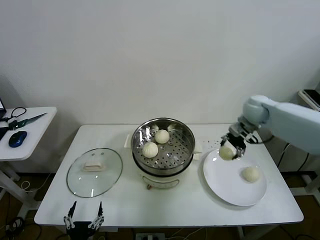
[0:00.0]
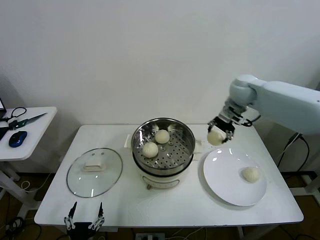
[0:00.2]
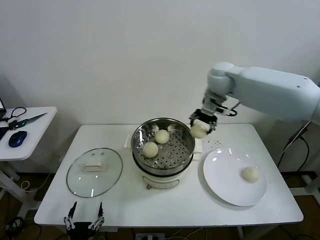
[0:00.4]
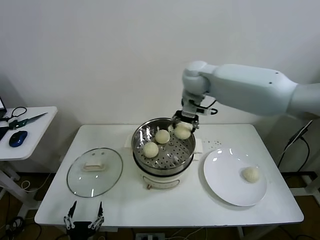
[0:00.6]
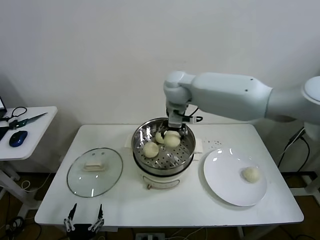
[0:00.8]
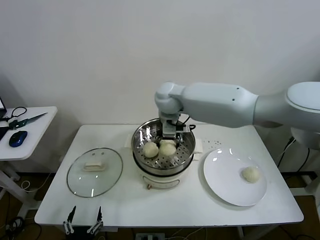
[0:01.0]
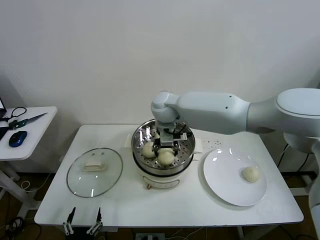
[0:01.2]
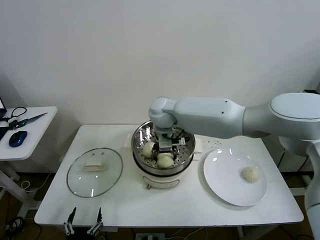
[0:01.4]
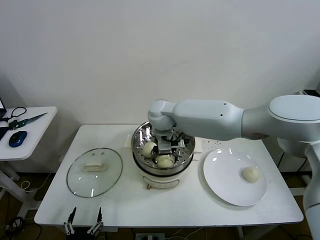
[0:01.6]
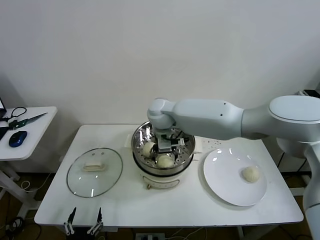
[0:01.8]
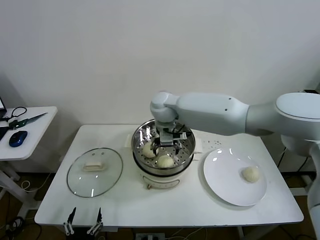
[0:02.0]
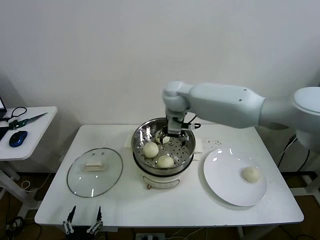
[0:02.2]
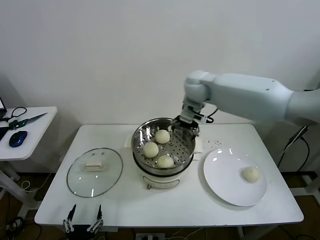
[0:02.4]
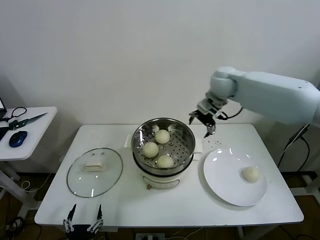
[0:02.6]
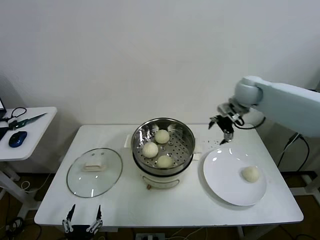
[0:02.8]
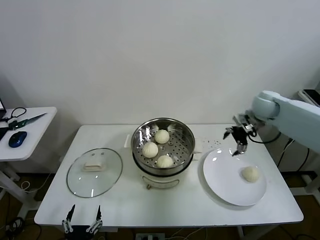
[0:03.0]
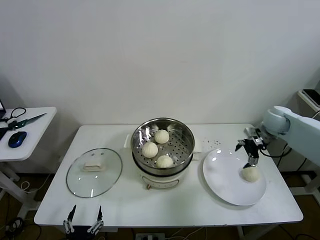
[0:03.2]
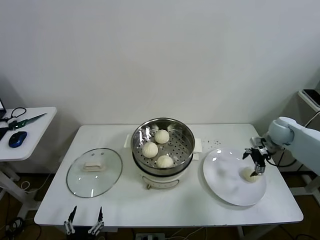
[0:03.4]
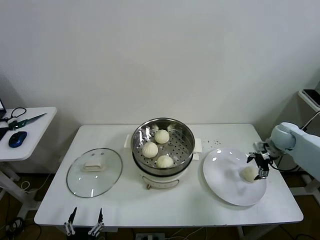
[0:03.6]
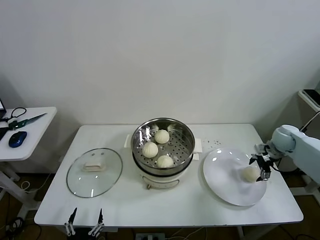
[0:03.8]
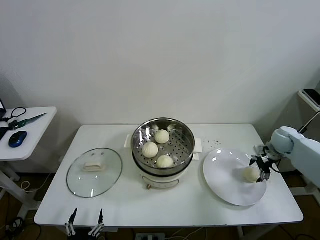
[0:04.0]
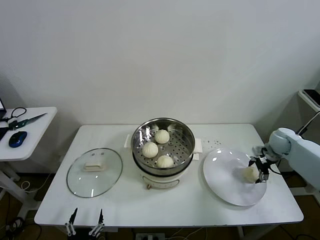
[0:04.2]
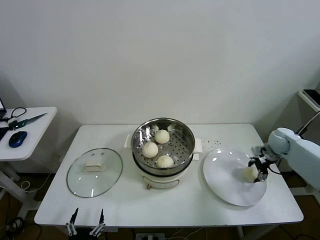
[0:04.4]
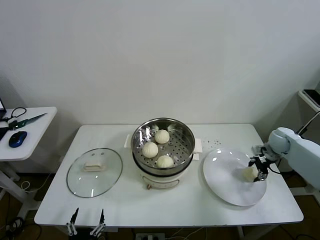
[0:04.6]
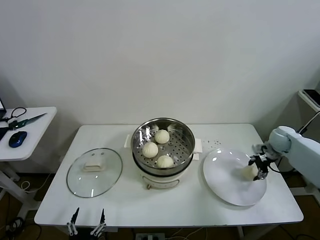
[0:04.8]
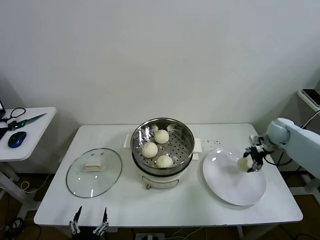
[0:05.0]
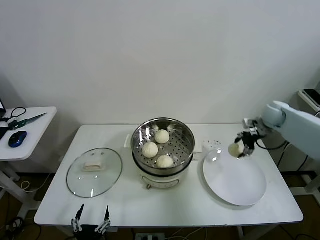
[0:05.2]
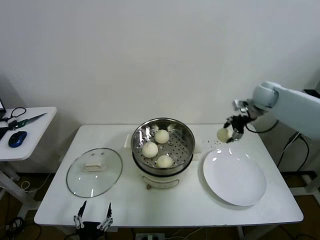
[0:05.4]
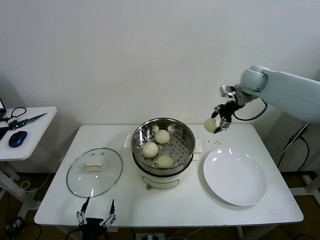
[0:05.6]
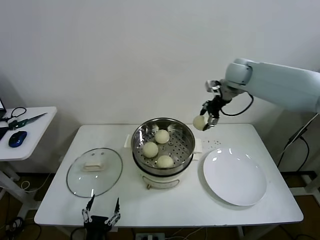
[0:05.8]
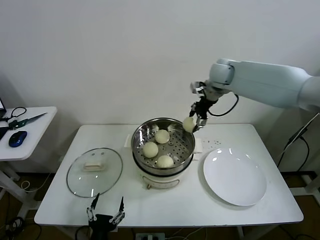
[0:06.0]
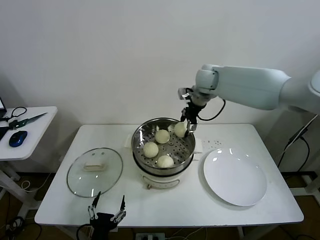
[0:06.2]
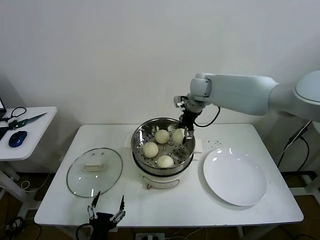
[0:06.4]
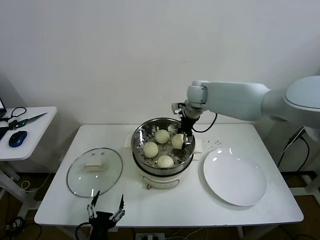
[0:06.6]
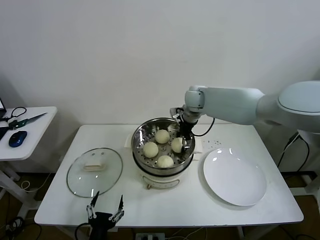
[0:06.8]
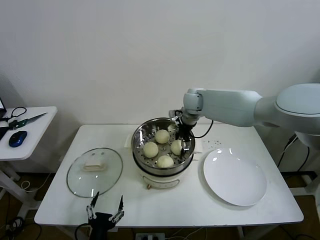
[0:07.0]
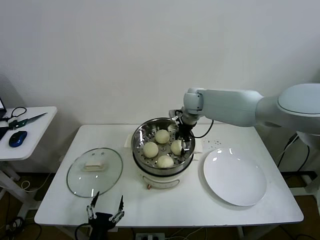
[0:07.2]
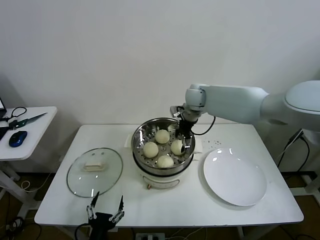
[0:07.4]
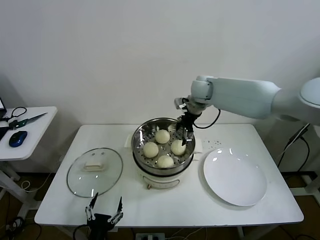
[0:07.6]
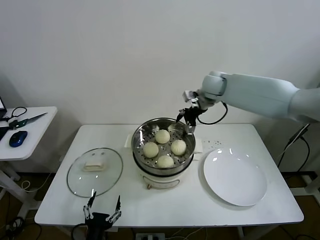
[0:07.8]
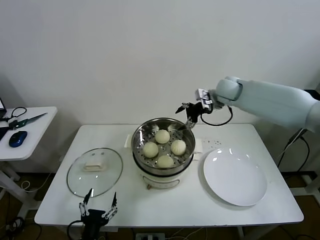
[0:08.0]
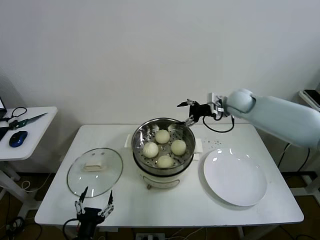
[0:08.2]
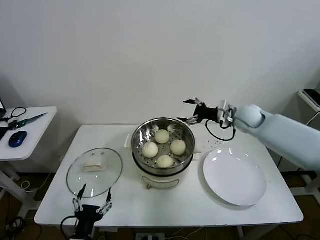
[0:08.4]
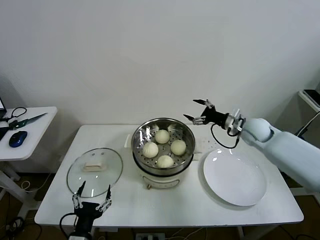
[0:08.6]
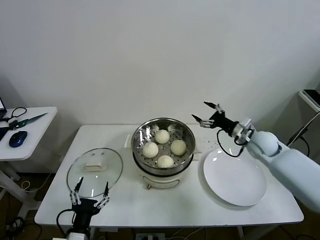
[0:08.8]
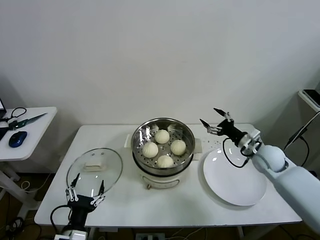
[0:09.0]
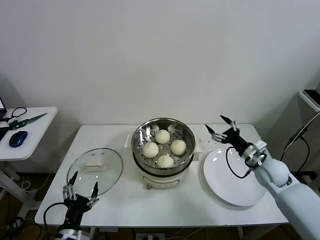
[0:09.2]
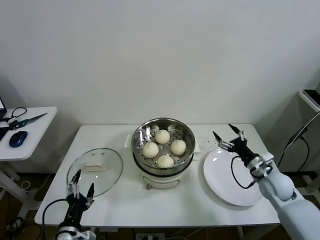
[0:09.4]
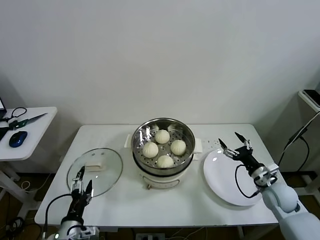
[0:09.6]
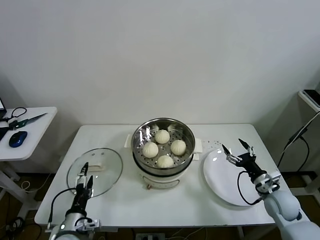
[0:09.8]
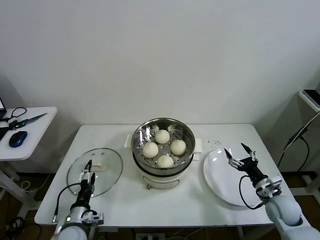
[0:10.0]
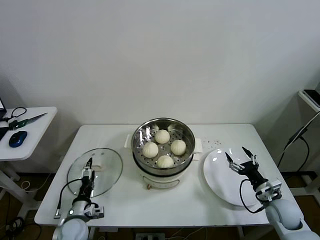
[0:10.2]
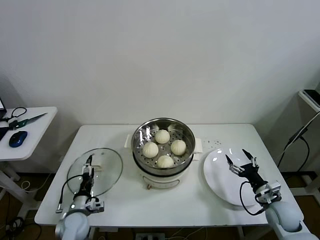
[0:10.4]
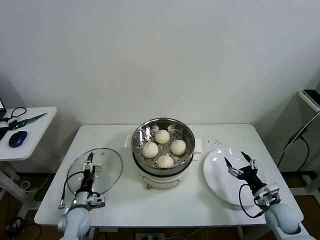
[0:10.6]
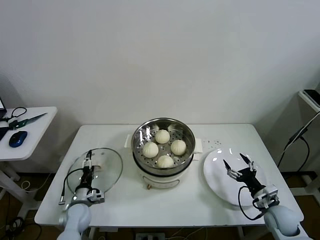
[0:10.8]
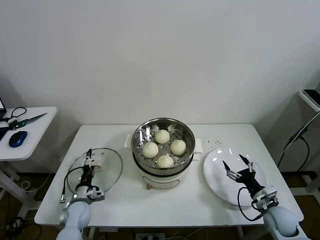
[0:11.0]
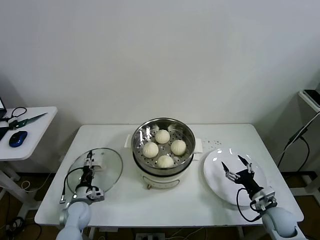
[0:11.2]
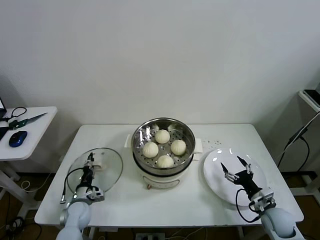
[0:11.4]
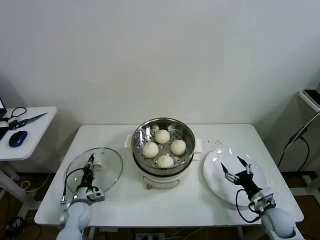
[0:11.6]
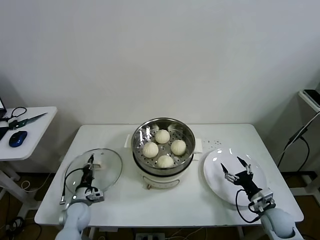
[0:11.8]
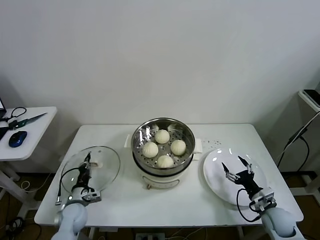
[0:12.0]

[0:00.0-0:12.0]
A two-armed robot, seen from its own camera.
Task of the whole recording: take steamed baozi put them in steamer then cover it.
Step, 0:00.0 to 0:01.6: Place the baozi on the steamer with right gripper.
Step, 0:02.0 to 0:04.6: Grasp the baozi in the plate with right gripper.
Step, 0:04.8 to 0:07.2: Place the baozi on the steamer with right gripper.
Step, 0:07.4 to 0:11.6: Grasp the pot lid with left gripper.
0:00.0 to 0:01.6: The right gripper goes some 30 cm to the left, and opens up.
0:01.6 to 0:03.0: The right gripper shifts some 40 cm to the right.
0:03.0 to 0:04.4: The right gripper is displaced downward and to the right by some 15 cm, and closes its fingers.
0:04.4 to 0:06.0: The left gripper changes place by some 5 cm. Meanwhile the right gripper is displaced to the left and upward by about 35 cm.
0:06.0 to 0:07.6: The right gripper moves downward, roughly 5 cm, and opens up.
0:07.6 to 0:09.0: The left gripper moves approximately 5 cm, while the right gripper heads to the right, downward and backward, covering roughly 35 cm.
0:09.0 to 0:10.4: The right gripper moves backward and downward, about 20 cm, while the left gripper moves forward, downward and to the left, roughly 20 cm.
0:10.4 to 0:12.0: The left gripper closes up.

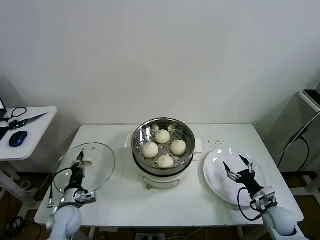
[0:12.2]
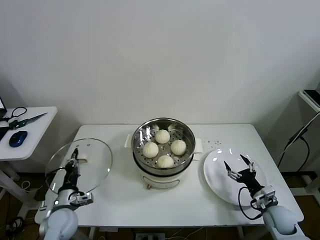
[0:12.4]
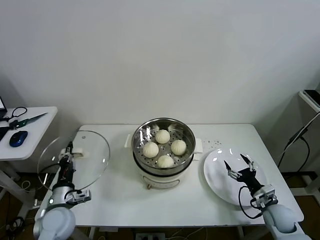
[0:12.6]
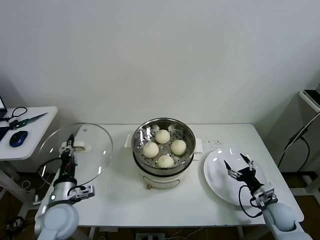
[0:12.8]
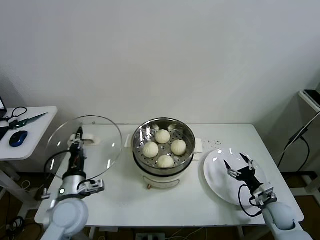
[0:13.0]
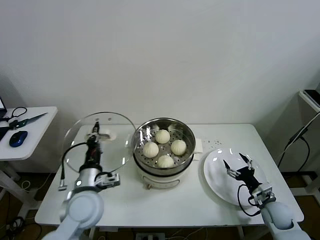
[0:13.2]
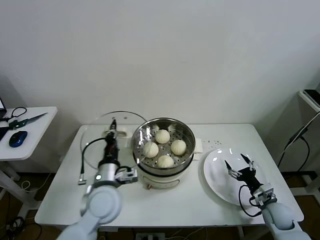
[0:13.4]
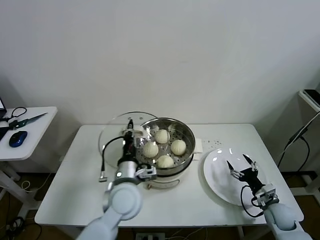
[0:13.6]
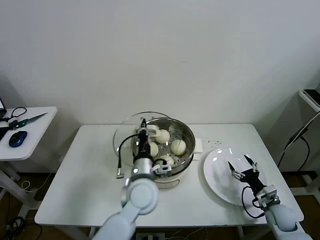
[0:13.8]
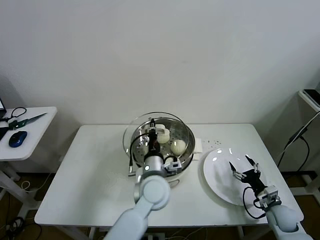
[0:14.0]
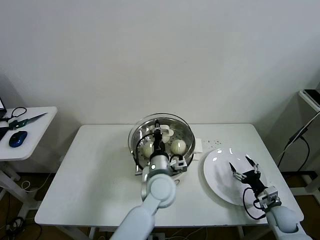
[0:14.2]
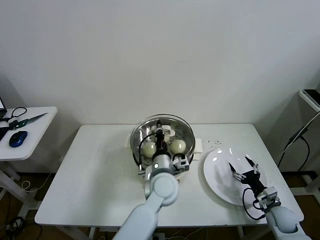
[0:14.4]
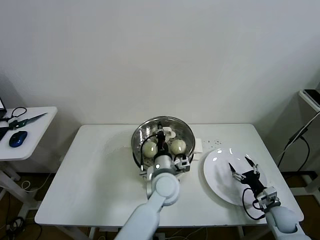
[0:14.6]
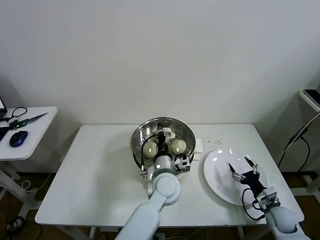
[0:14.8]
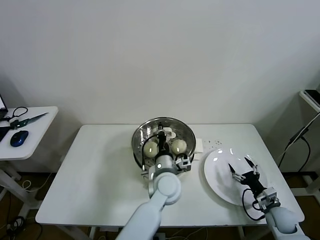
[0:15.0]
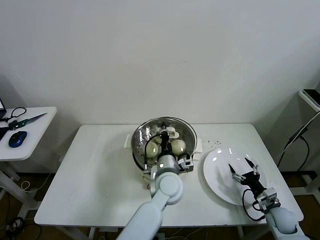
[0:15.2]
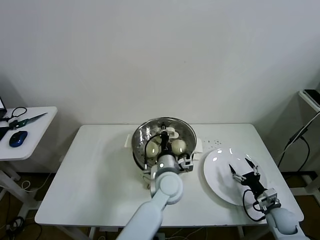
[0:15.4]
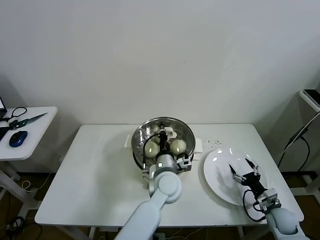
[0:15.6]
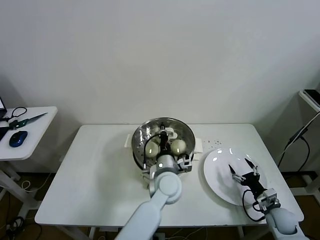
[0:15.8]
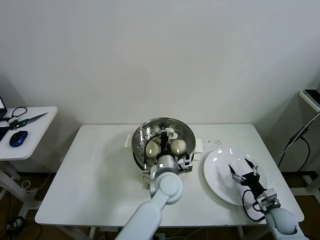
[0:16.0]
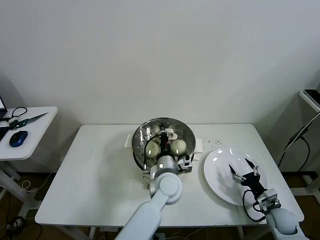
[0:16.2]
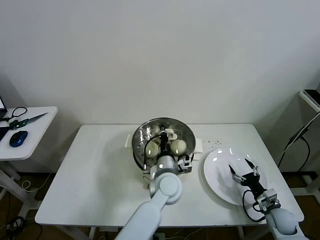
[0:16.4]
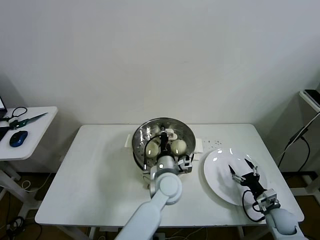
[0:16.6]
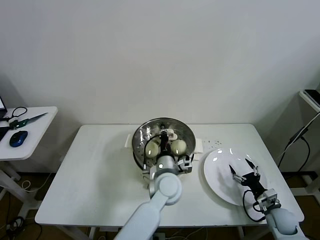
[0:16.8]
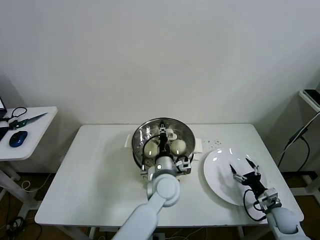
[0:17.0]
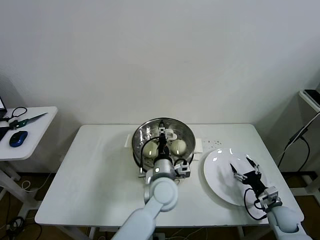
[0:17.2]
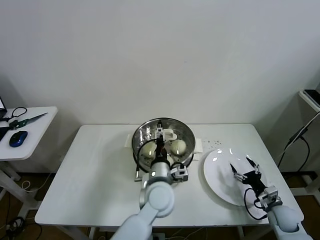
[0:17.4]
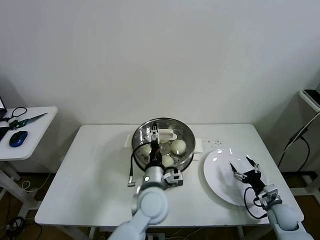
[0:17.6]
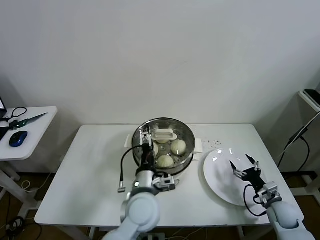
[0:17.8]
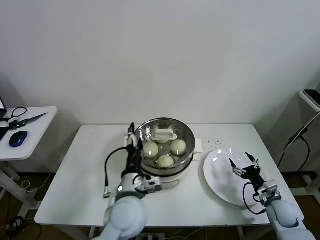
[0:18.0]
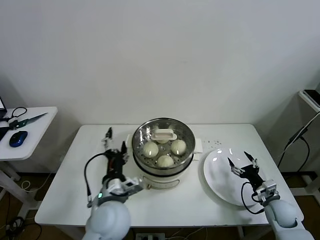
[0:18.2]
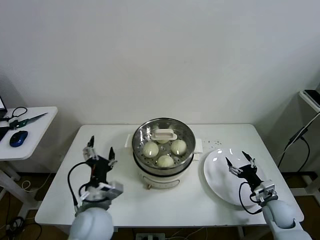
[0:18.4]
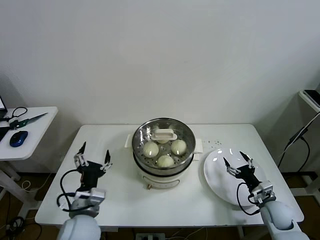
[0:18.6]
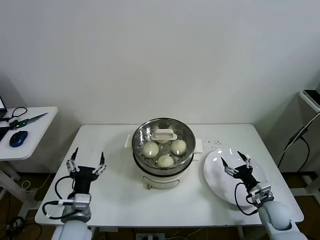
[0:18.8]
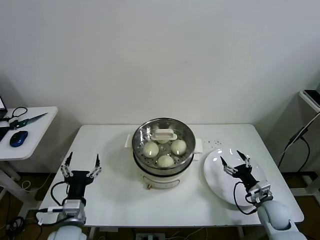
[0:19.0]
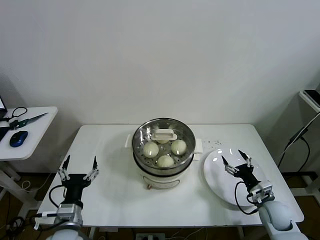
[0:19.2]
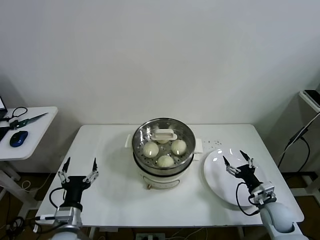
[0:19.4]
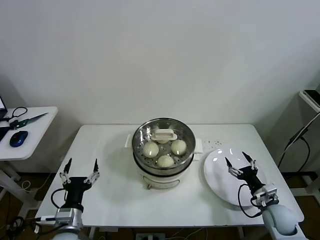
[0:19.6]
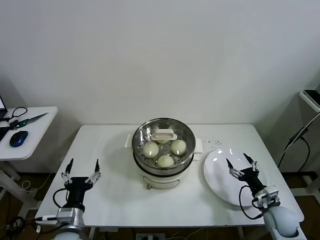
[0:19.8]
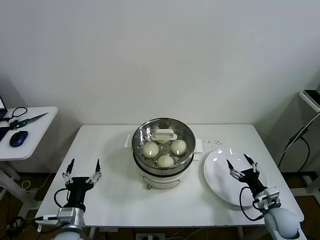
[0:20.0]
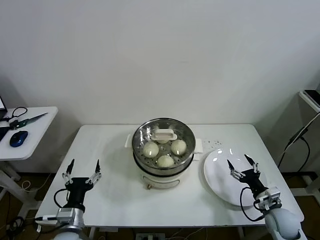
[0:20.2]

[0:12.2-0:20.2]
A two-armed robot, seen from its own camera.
Task of the whole recording: take steamed baozi put them in steamer then cover it.
Step, 0:12.2 to 0:17.0: Place the pot lid on the steamer with left gripper.
0:12.2 to 0:13.8: The left gripper is displaced to the right and upward by roughly 30 cm.
0:13.8 to 0:15.4: The left gripper goes approximately 10 cm to the right.
0:15.4 to 0:17.0: Both grippers stay about where they are.
0:17.0 to 0:18.6: The right gripper shifts by approximately 5 cm; the left gripper shifts approximately 25 cm to the left and backward, and opens its fingers.
0:18.6 to 0:20.2: The left gripper is displaced downward and to the left by about 10 cm.

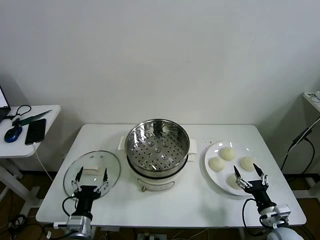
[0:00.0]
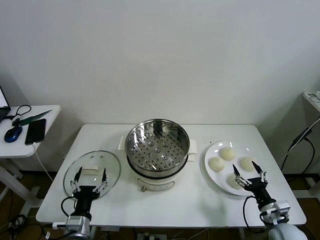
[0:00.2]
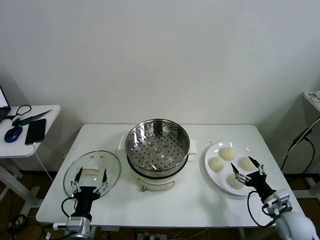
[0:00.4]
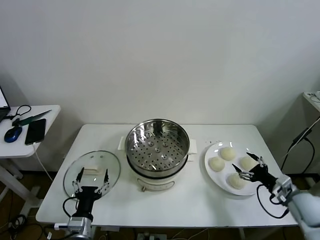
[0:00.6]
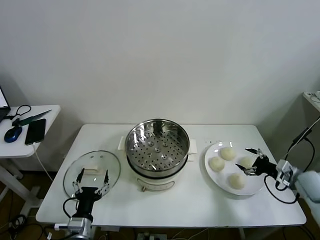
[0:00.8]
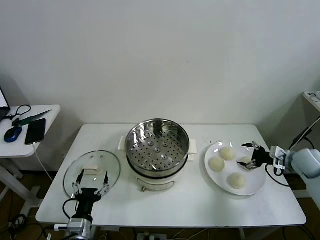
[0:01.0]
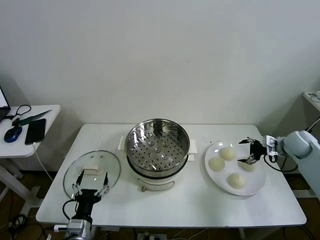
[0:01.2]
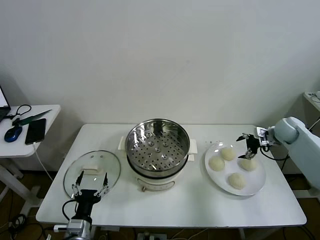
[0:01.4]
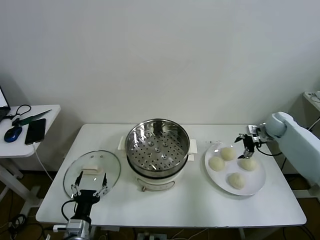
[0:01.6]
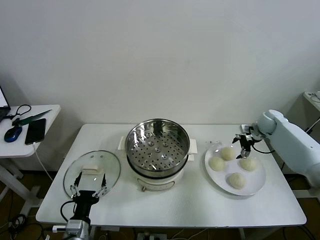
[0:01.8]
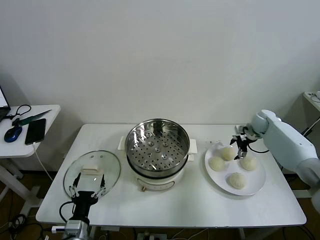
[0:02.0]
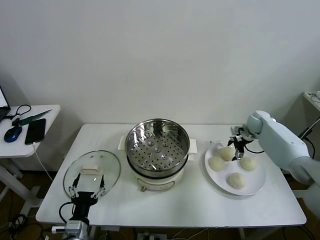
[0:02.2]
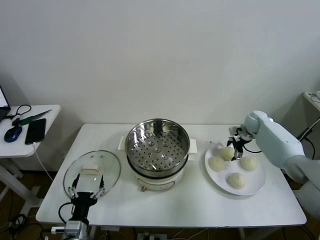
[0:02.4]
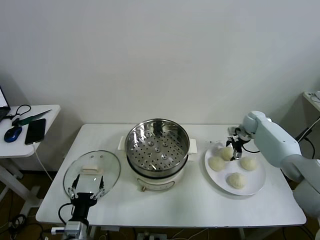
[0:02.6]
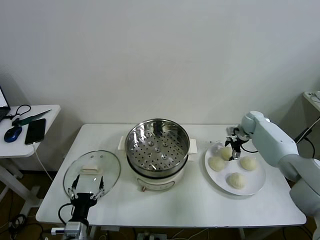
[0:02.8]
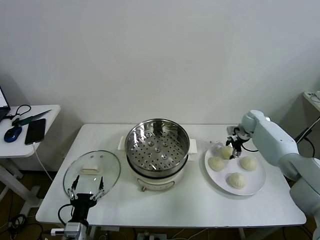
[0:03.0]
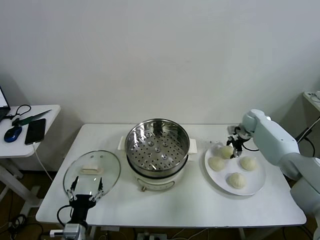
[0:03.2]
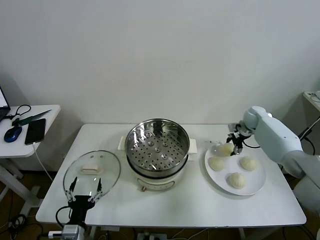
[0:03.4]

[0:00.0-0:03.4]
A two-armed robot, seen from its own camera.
Task of the whole recording: take steamed baozi put them in steamer then cover it.
Step, 0:00.0 to 0:03.0: Grasp the baozi in the plate with right gripper.
0:01.6 to 0:03.4: The right gripper travels forward and to the left by roughly 10 cm, and closes.
